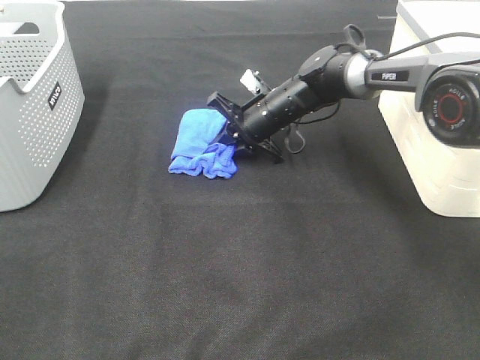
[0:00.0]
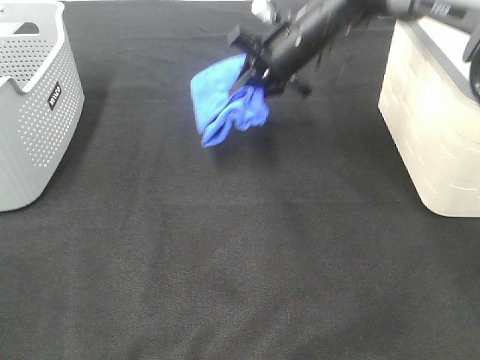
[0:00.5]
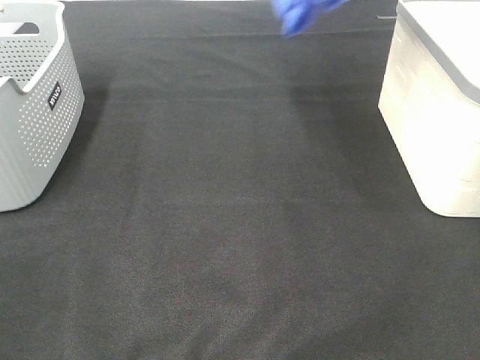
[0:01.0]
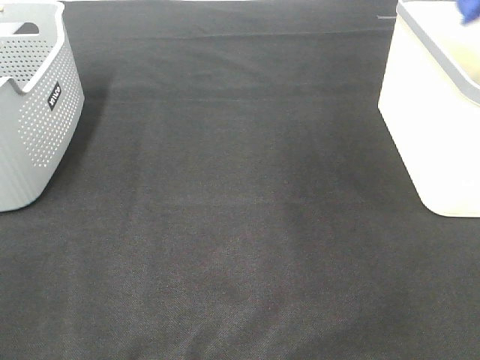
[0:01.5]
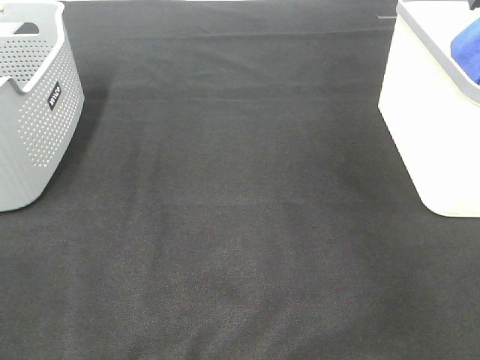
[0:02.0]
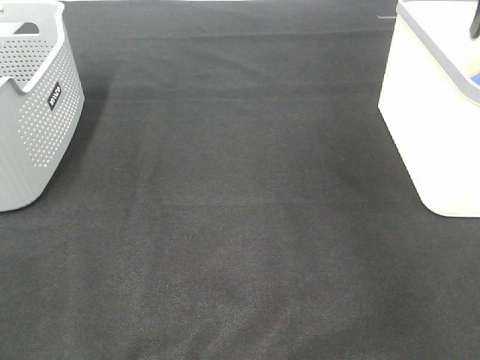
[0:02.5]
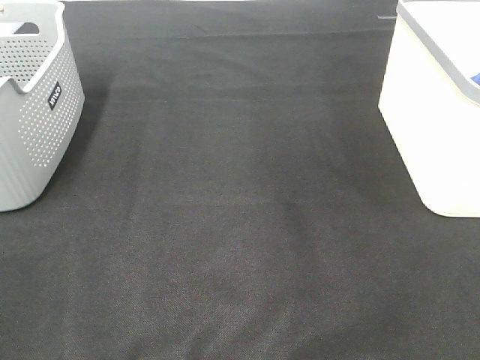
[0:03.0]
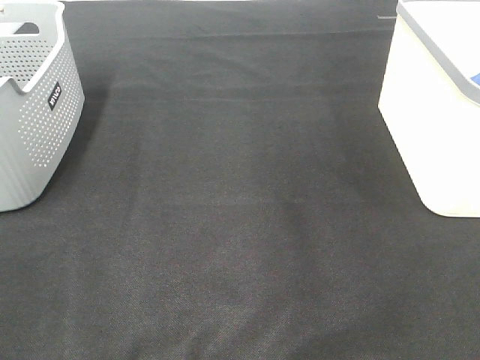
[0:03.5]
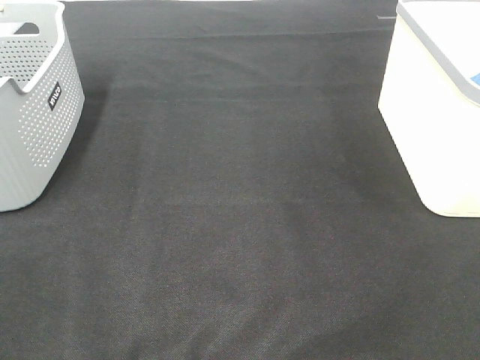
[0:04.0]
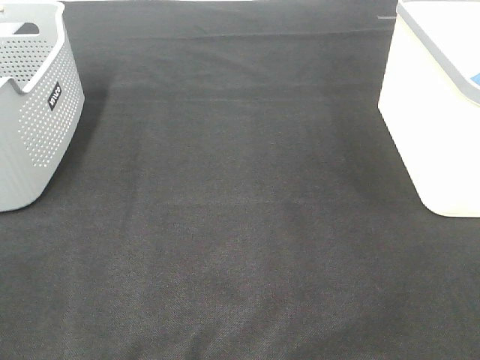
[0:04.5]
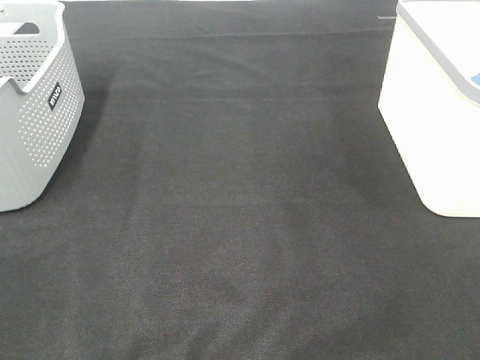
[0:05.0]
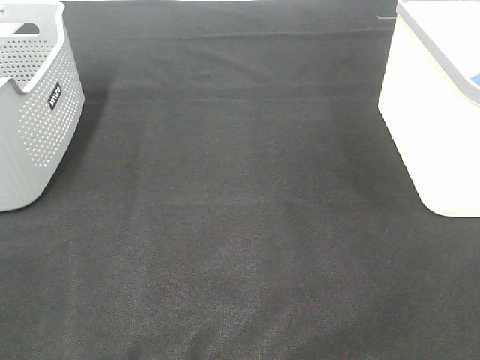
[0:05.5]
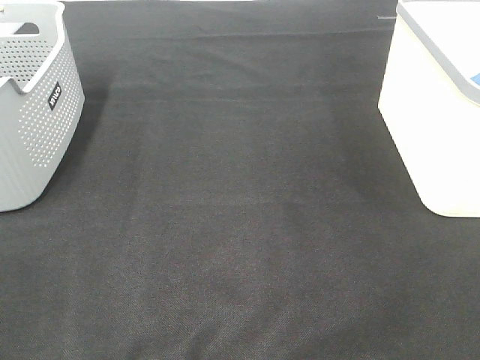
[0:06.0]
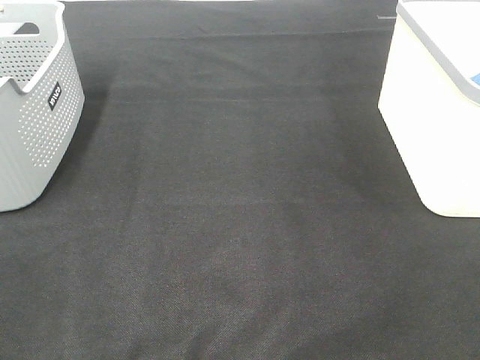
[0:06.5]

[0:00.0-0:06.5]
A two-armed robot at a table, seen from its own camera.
Step, 0:00.0 to 0:02.0: Right hand: place the blue towel in right basket.
0:00.0 to 0:02.0: The right gripper is displaced to the right and upward by roughly 35 cm.
0:02.0 to 0:04.5: The right gripper shifts about 50 cm backward, and opens.
